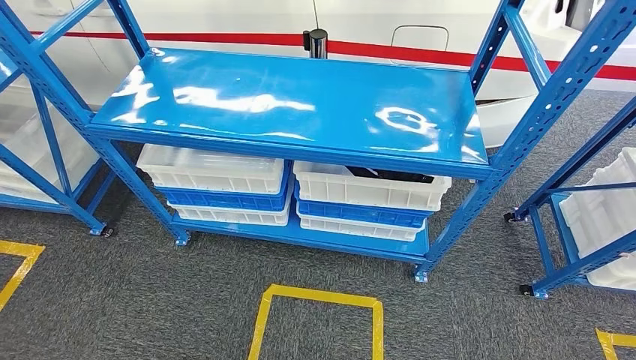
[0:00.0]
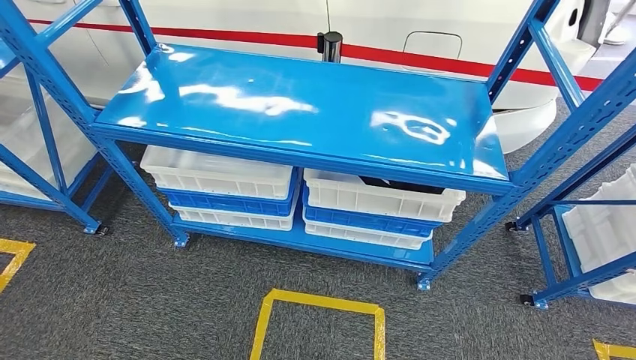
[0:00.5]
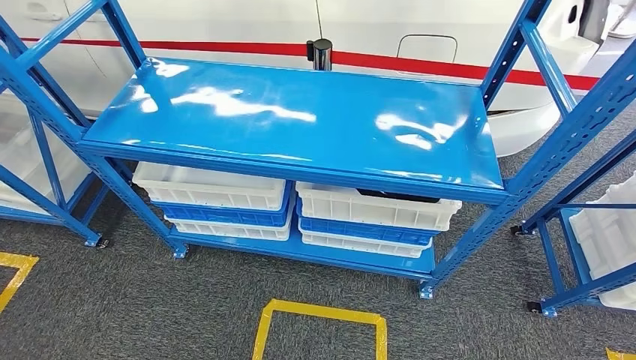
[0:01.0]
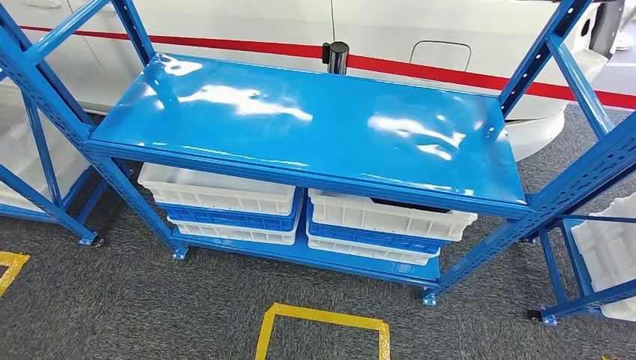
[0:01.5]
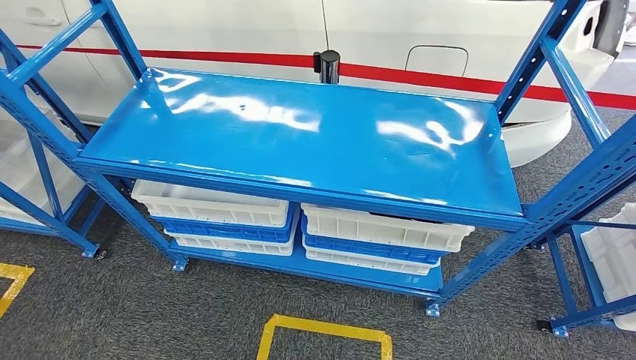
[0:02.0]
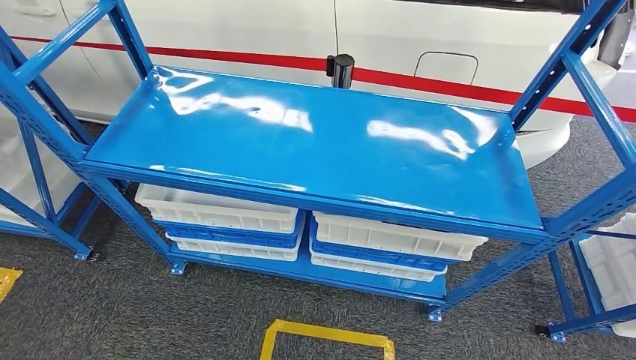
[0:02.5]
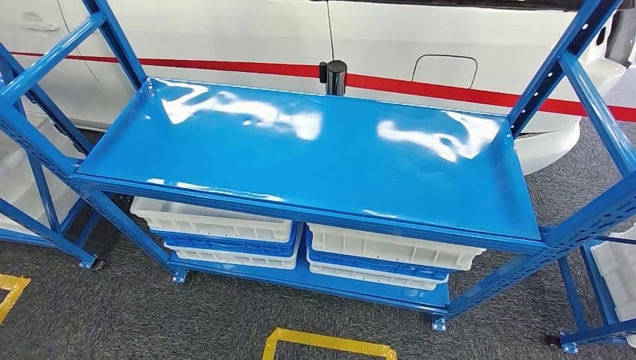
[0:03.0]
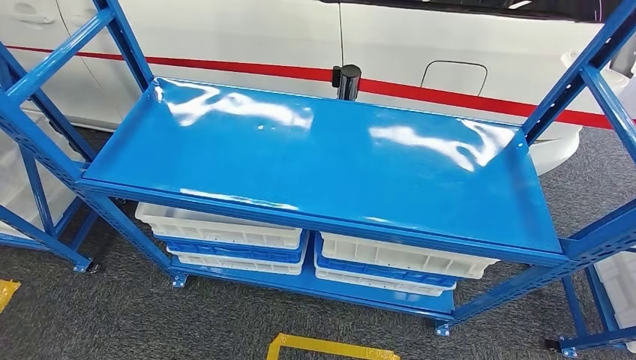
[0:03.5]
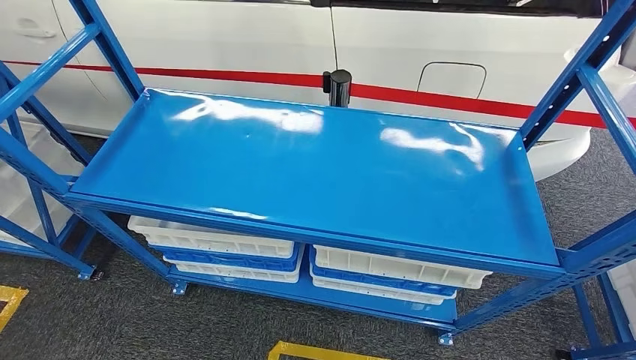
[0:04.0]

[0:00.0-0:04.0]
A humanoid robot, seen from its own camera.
Step, 0:00.0 to 0:04.0: Return to the initial position at the shelf.
